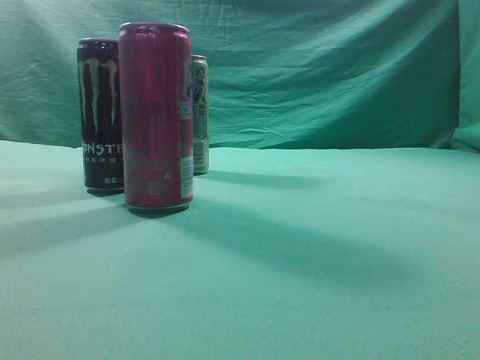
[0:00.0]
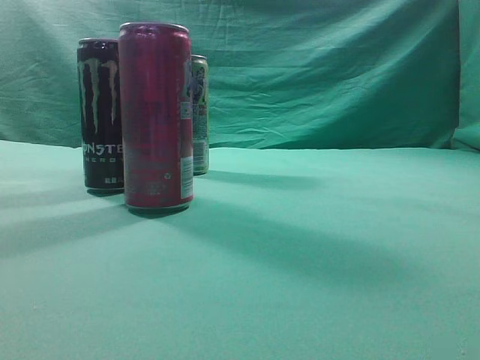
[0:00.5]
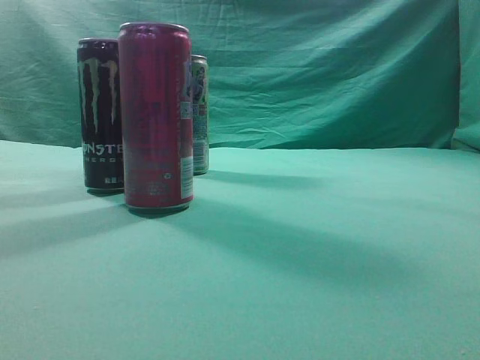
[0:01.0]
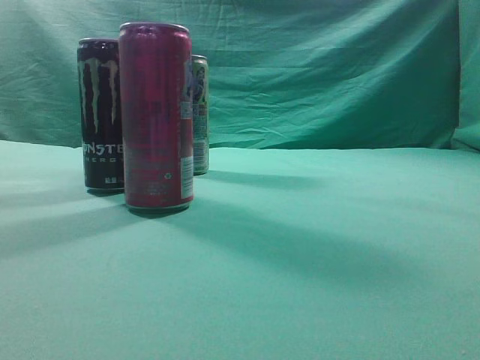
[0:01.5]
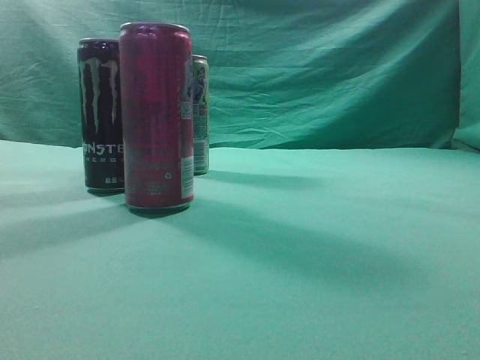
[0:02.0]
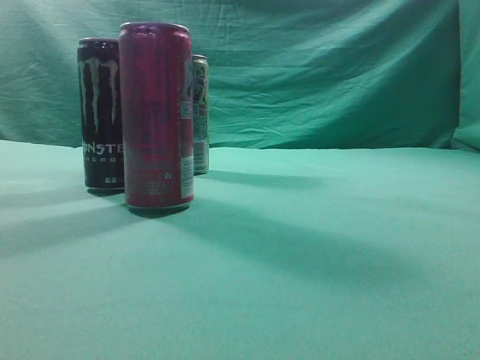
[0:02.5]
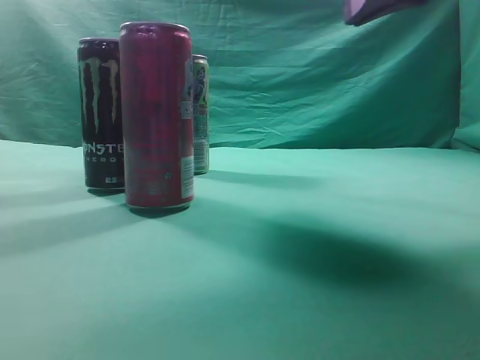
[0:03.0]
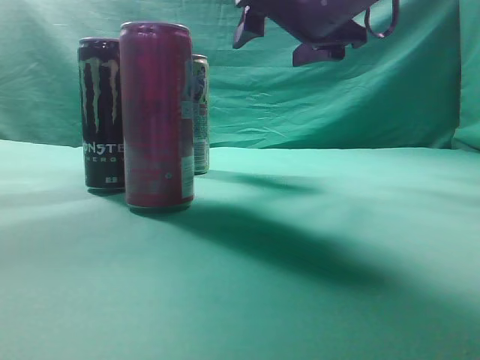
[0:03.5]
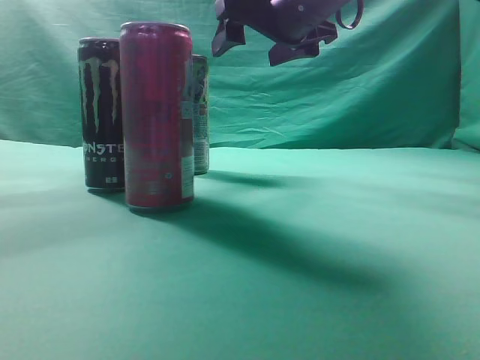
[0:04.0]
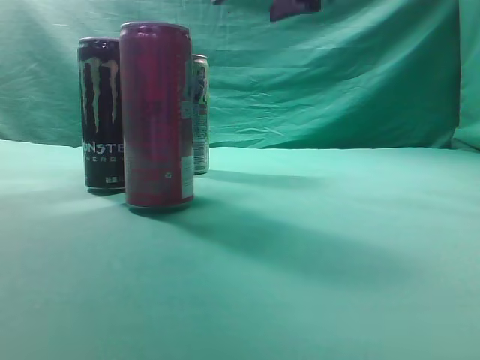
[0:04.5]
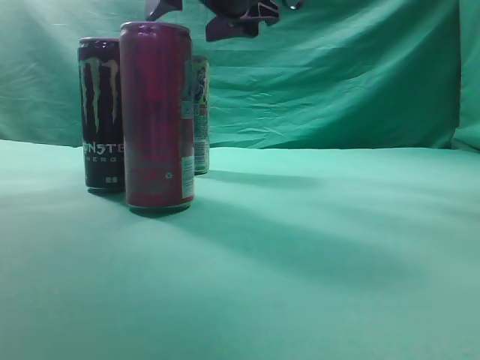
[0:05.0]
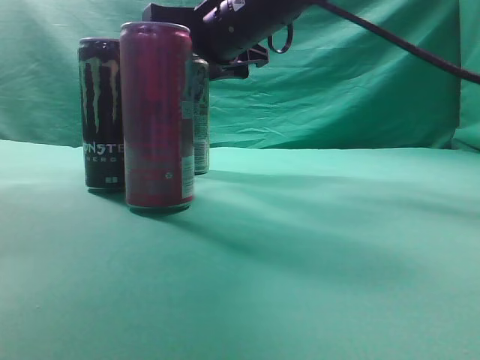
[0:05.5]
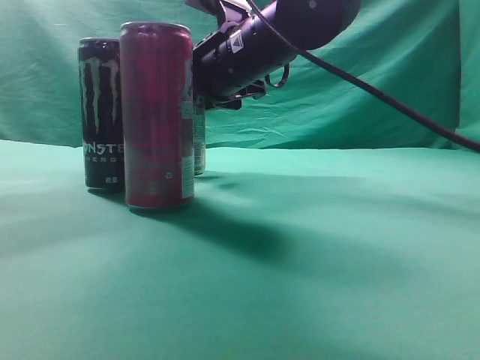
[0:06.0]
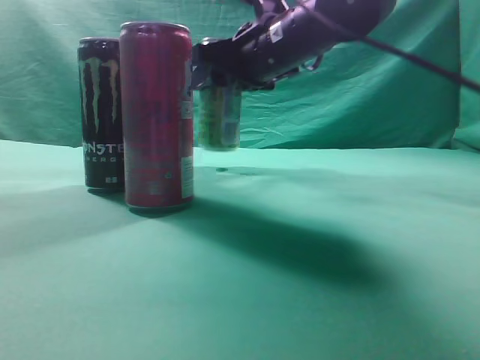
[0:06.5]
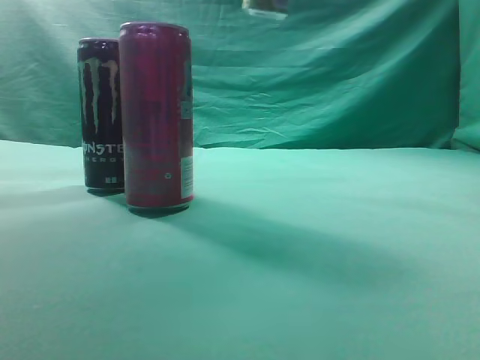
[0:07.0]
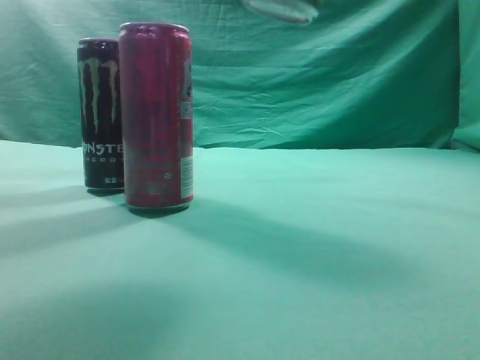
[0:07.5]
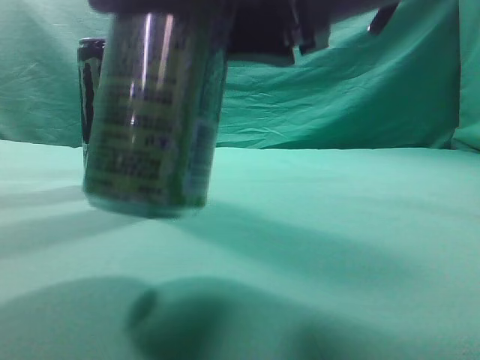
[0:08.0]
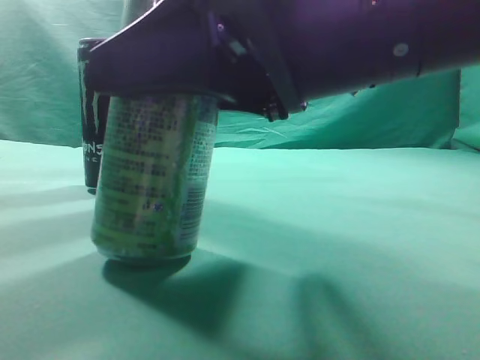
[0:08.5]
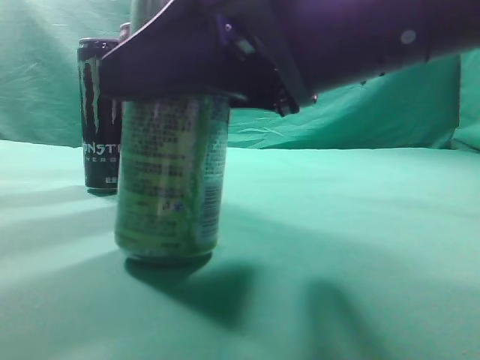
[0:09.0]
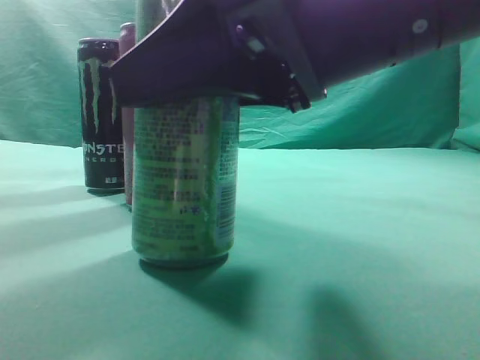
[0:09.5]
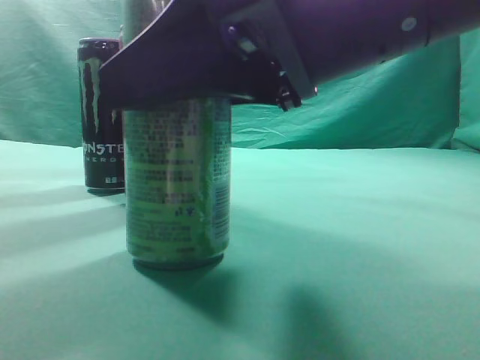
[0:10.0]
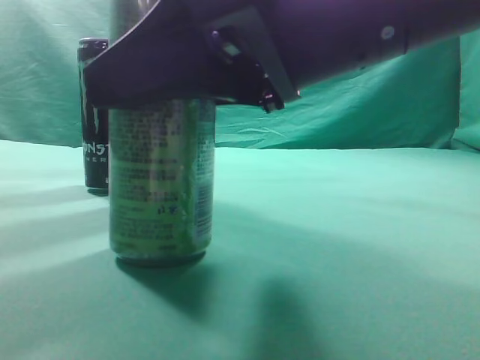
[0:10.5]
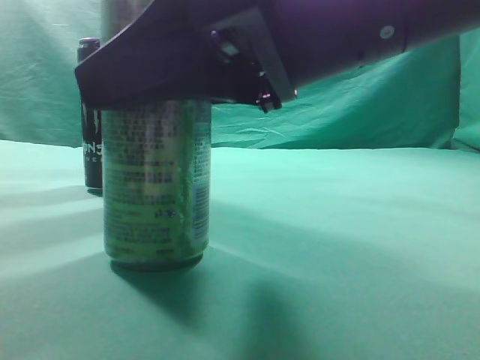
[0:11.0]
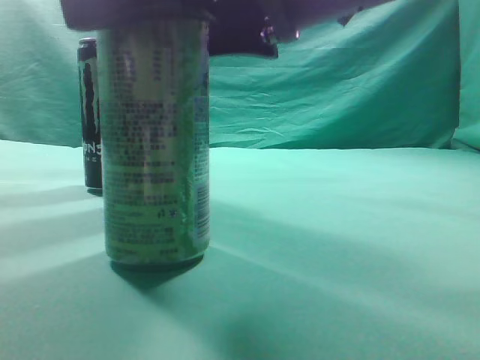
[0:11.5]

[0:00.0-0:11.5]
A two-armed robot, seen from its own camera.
Task of the whole recording: move one drink among three beverages.
Step, 0:00.0 to 0:06.5: Grasp the beverage bottle placed at the back of the desk.
0:02.0 to 0:04.0: The right gripper heads forward and to the left, covering roughly 40 cm, and opens.
0:04.0 to 0:06.0: The right gripper heads to the left and downward, covering about 10 cm.
0:06.0 to 0:07.5: The right gripper goes about 25 cm backward, to the right and upward.
0:07.5 to 0:09.5: The right gripper is displaced downward and to the left by roughly 15 cm.

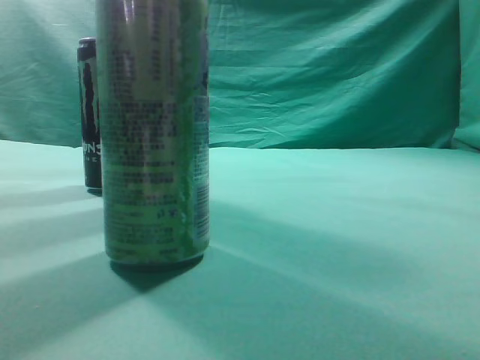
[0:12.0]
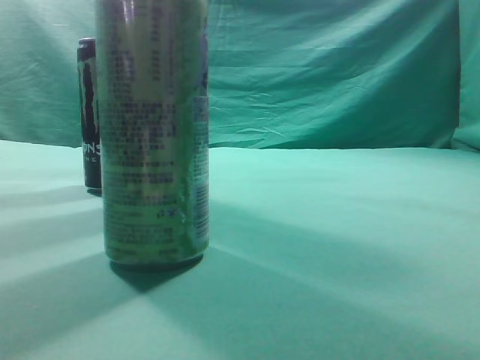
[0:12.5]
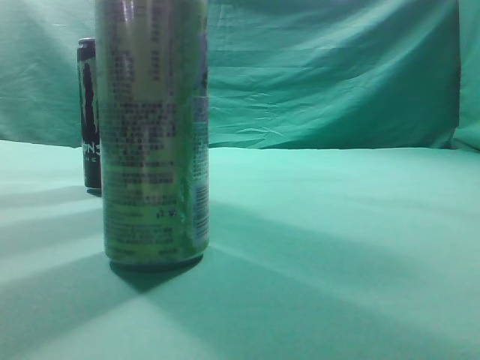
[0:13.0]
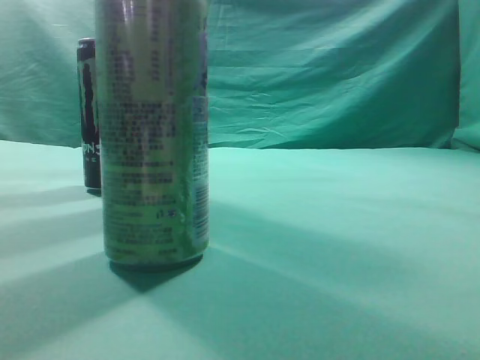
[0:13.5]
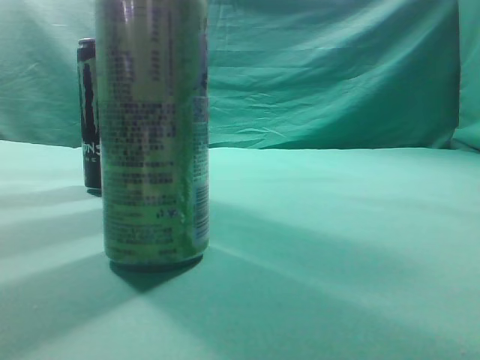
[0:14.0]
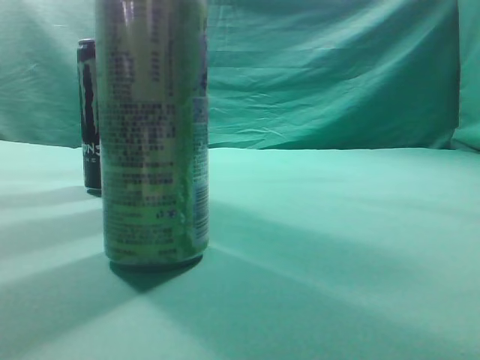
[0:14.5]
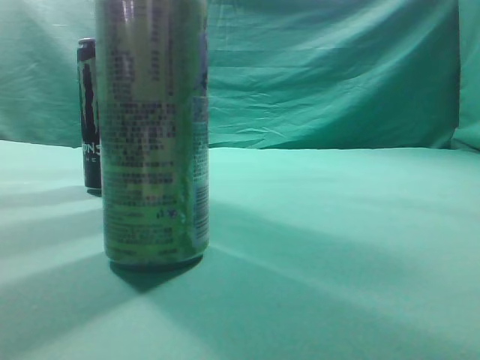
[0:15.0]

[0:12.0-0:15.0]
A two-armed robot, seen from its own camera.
Task of the whole recording: move one drink among three beverages.
0:12.0 to 0:13.5: The right gripper shifts about 20 cm to the right, backward and upward, and closes its fingers.
